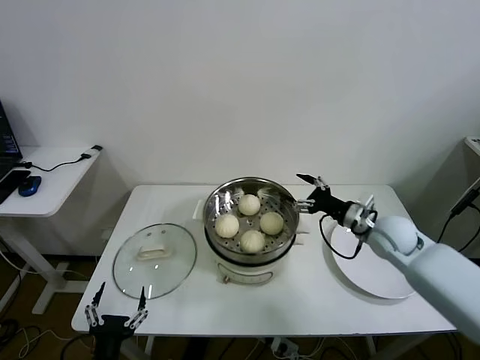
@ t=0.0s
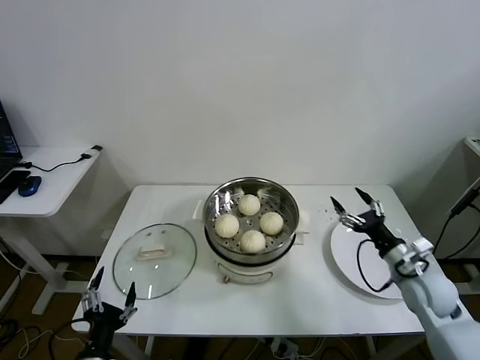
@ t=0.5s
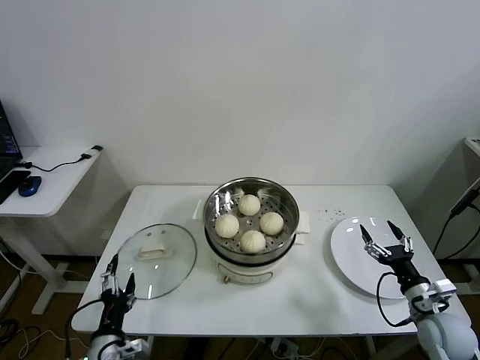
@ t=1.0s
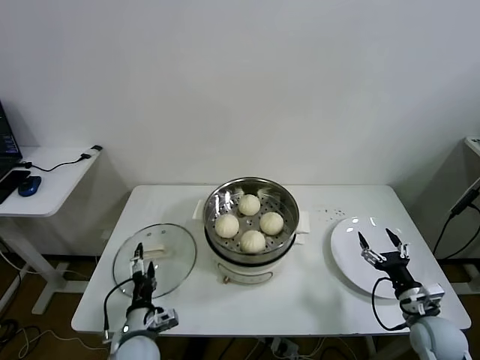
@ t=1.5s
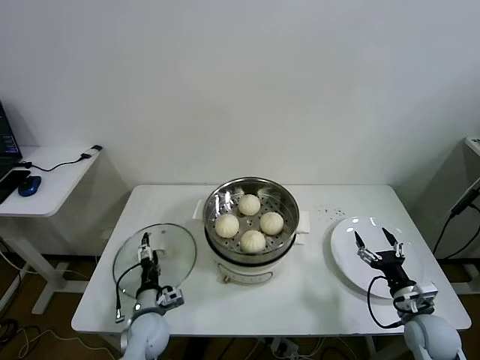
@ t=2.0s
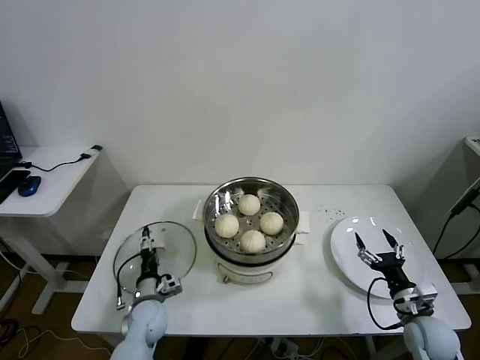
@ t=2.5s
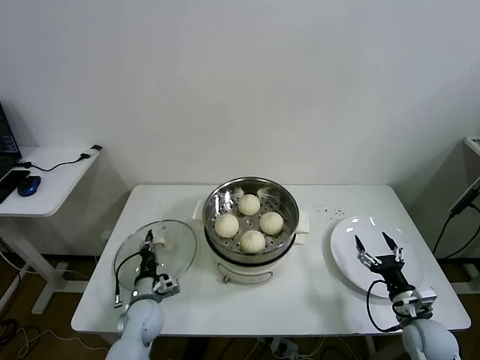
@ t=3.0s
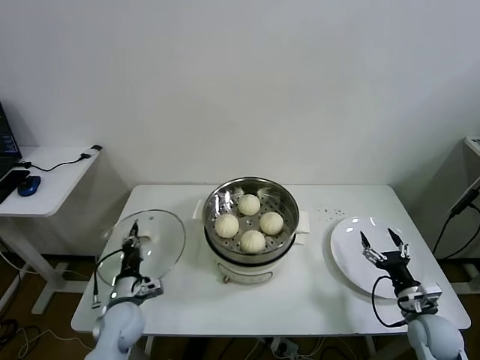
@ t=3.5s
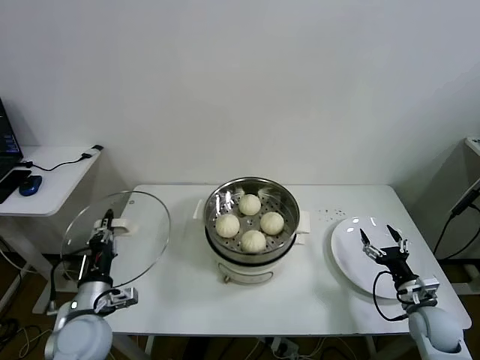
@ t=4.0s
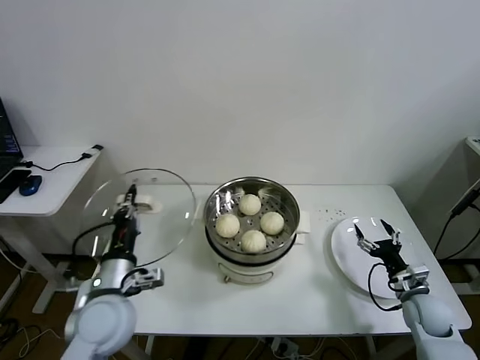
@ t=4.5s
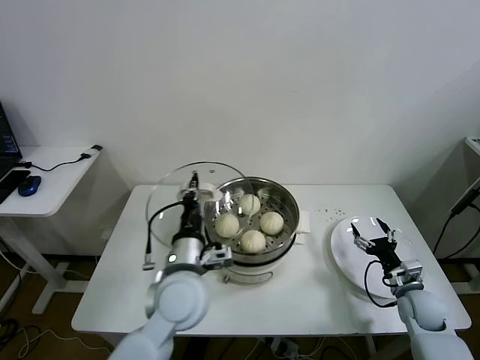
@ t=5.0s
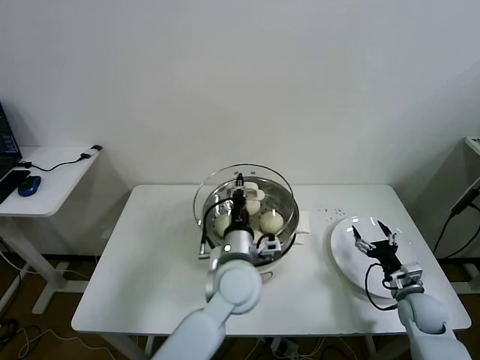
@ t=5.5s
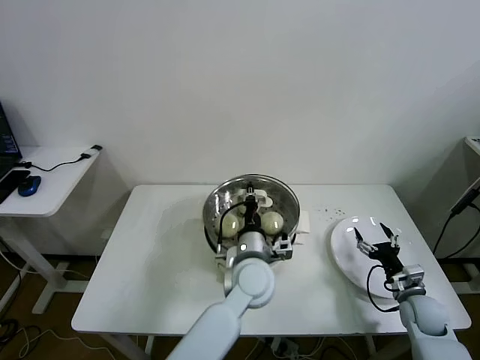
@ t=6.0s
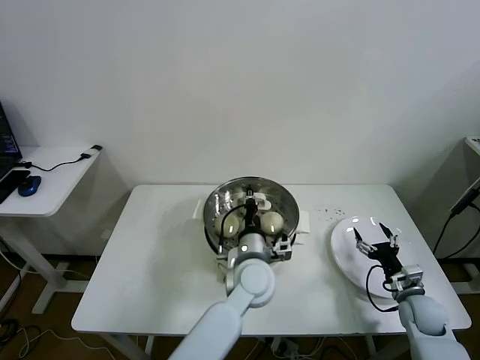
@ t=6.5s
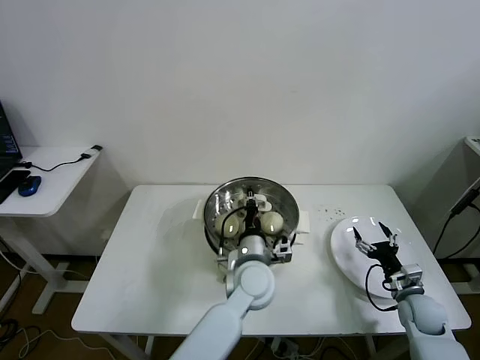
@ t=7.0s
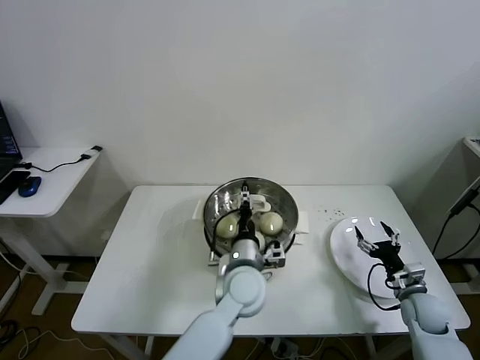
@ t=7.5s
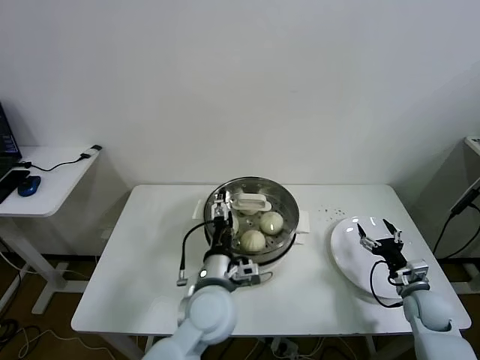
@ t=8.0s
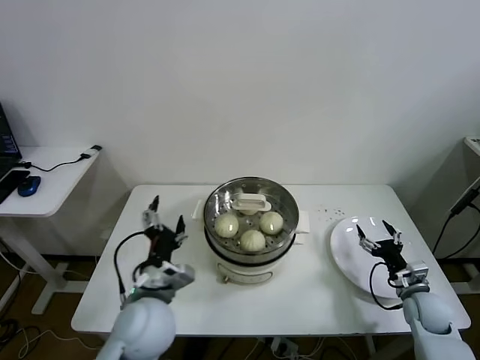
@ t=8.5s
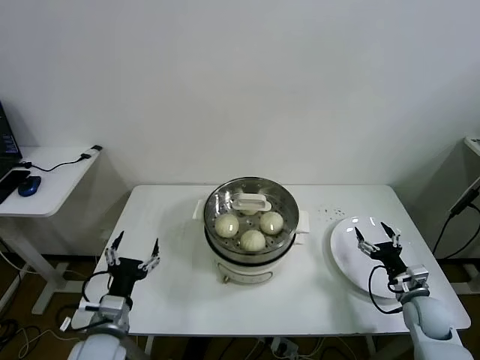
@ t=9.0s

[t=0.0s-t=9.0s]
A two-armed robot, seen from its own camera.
Task of the whole recording: take steamed baozi put them in steamer.
Step, t=0.0s to t=3.0s: Grasp the pot lid with left gripper.
Step, t=3.5s to t=7.5s: Place the pot lid on the steamer with left gripper.
t=0.0s to t=2.0s: The right gripper moves backward, downward and to the right, approximately 25 cm, while the left gripper goes approximately 20 cm forward and downward.
t=2.0s to t=4.5s: The right gripper moves about 5 cm. Meanwhile the left gripper heads upward, covering some 20 cm, and closes.
t=4.5s to t=7.0s: The left gripper heads to the right, covering some 25 cm.
t=7.0s to t=9.0s: The left gripper goes some 30 cm to the left and backward, and opens its fingers.

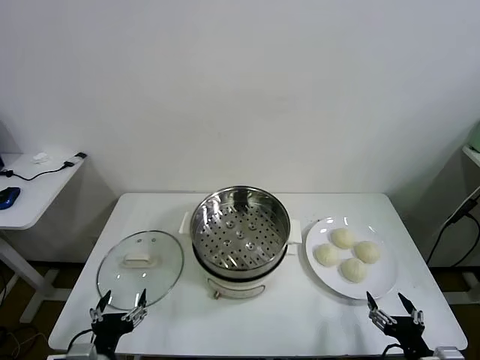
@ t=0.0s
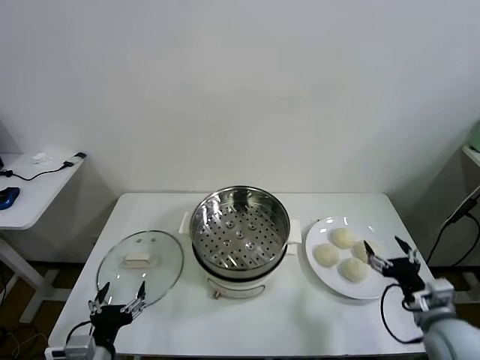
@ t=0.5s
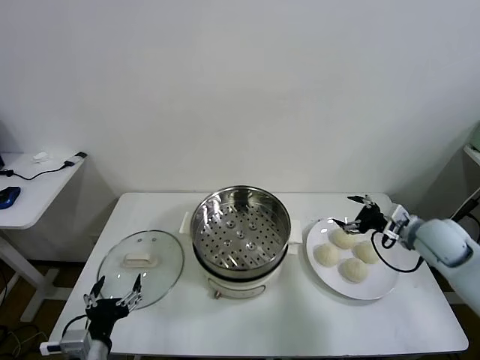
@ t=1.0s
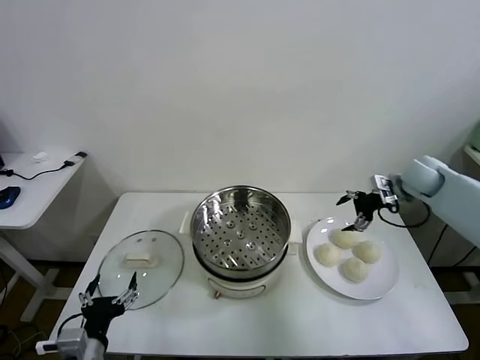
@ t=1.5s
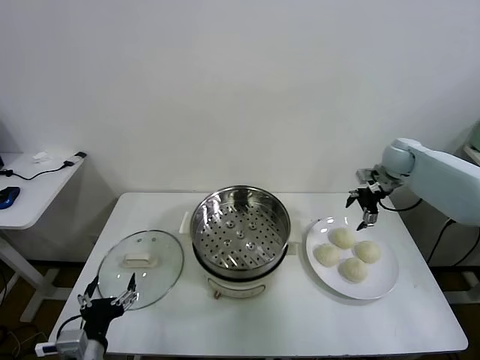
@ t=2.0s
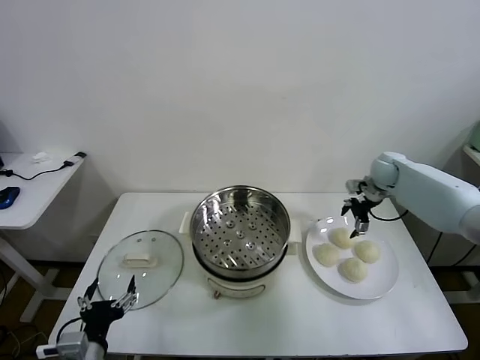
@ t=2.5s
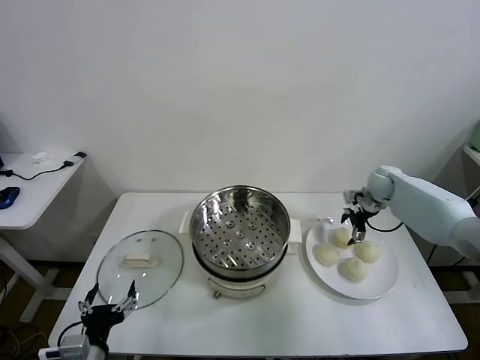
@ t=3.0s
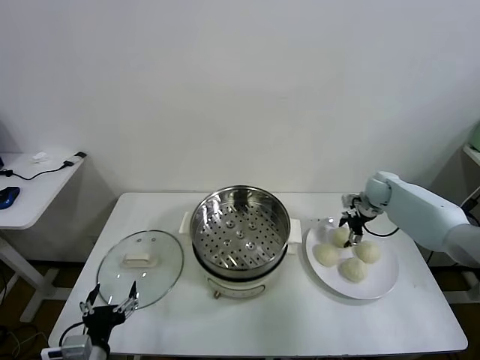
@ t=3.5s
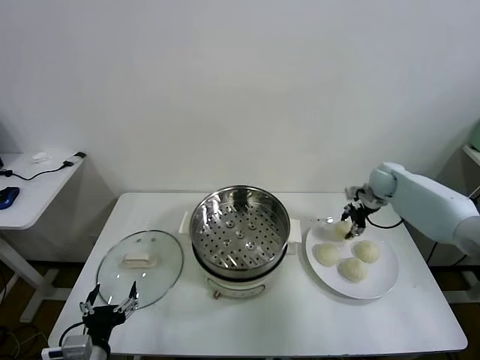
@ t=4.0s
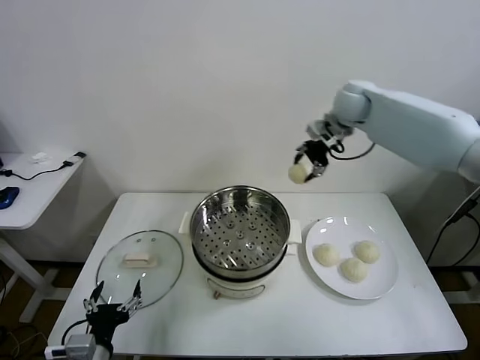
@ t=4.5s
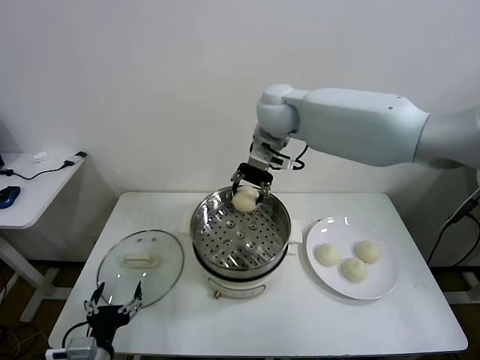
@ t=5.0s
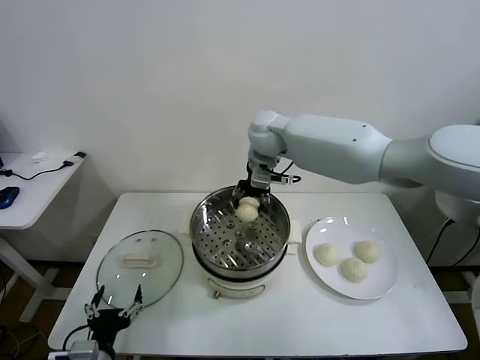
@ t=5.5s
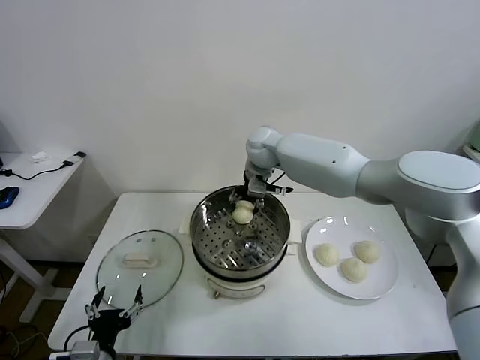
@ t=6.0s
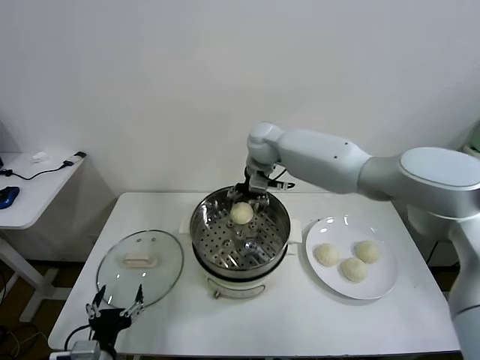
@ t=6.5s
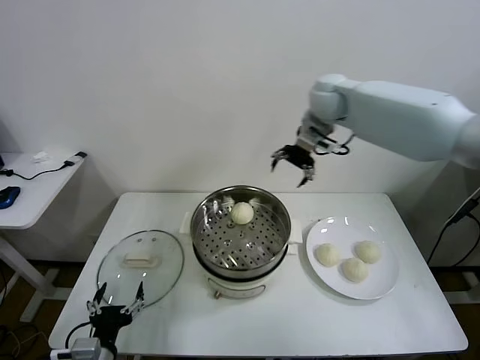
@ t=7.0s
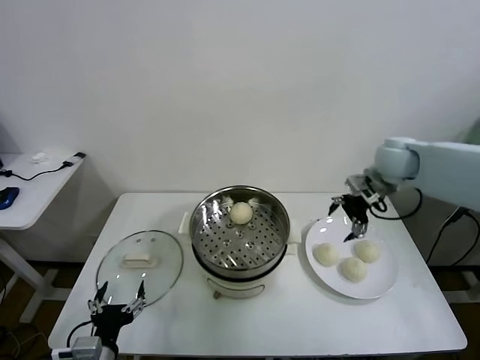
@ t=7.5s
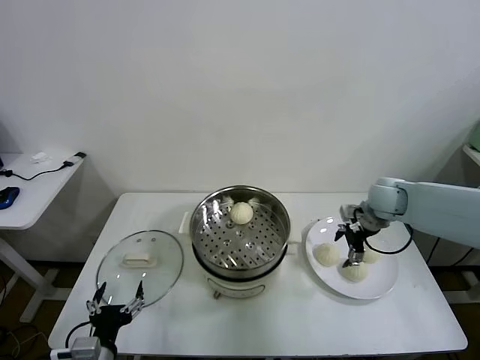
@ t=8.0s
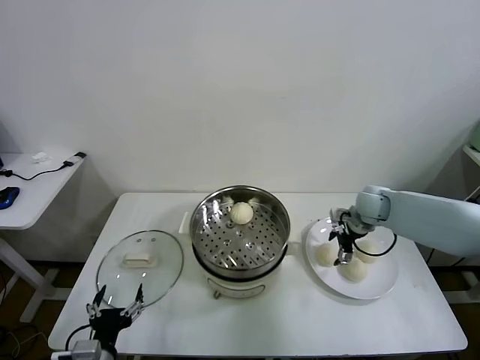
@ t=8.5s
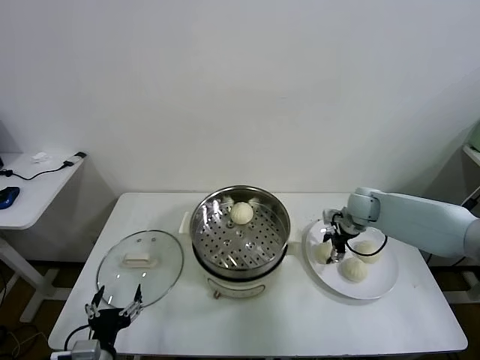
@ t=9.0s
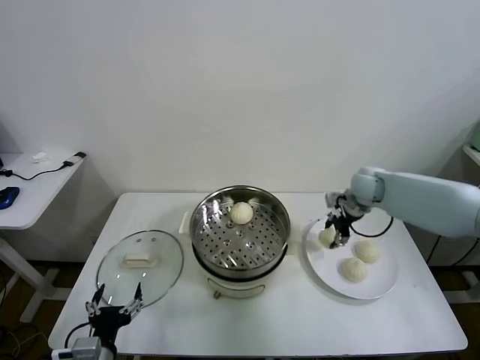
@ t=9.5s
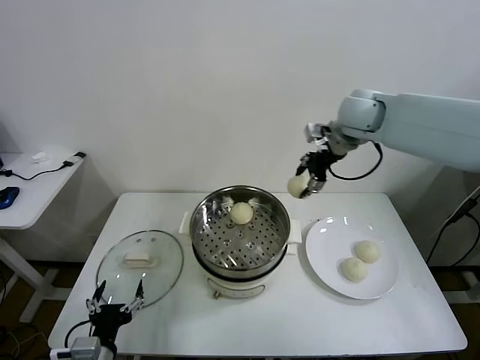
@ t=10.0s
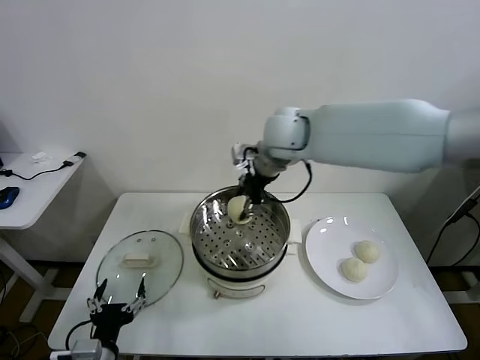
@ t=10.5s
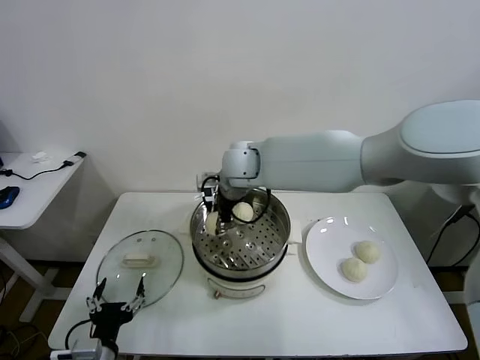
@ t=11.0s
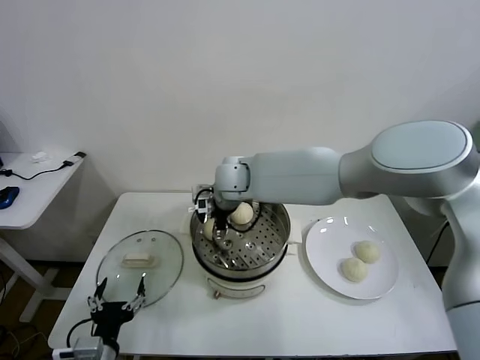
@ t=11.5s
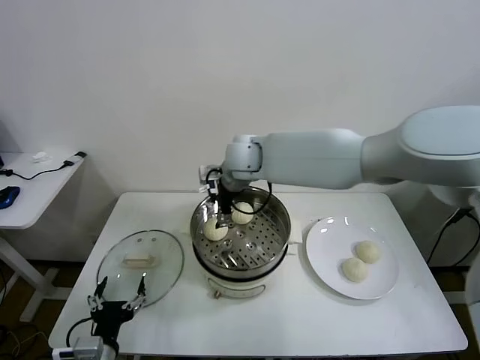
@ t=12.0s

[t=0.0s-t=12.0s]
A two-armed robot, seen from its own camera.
Task of the whole recording: take steamed baozi put them in steamer.
Step, t=0.0s to t=3.5s: Grasp the baozi in the plate with right gripper.
Step, t=4.0s to t=6.0s: Place the baozi on the steamer with right gripper.
Step, t=6.5s to t=9.0s: Grasp the baozi in the plate with right gripper.
Step, t=9.5s to t=11.5s: Place the baozi on the steamer with right gripper.
t=2.0s to t=4.0s: The right gripper closes.
t=4.0s to t=6.0s: The right gripper is displaced to the left by roughly 35 cm.
t=6.0s to t=8.0s: The right gripper is displaced to the right by some 30 cm, and opens.
t=8.0s to t=10.0s: The right gripper is displaced upward and to the left by roughly 25 cm, and closes its fingers.
t=10.0s to t=12.0s: The right gripper goes roughly 20 cm to the left and downward, and opens.

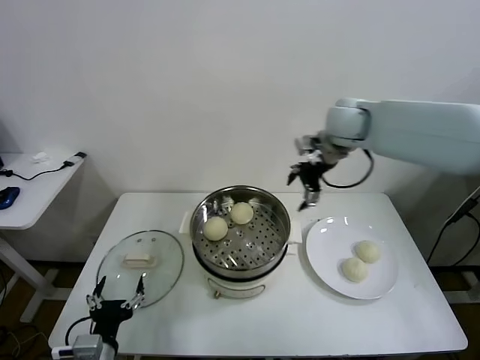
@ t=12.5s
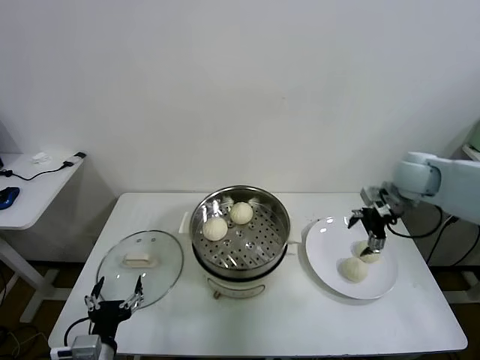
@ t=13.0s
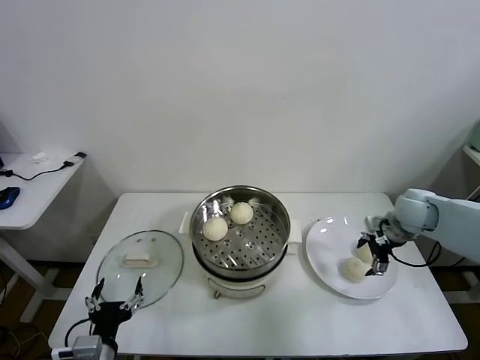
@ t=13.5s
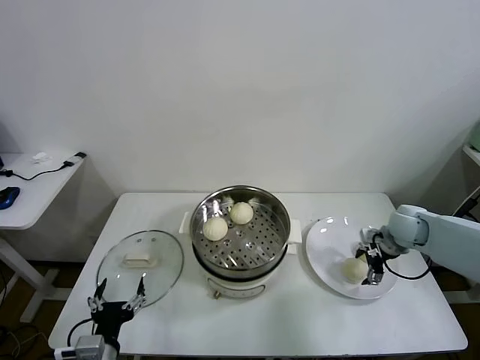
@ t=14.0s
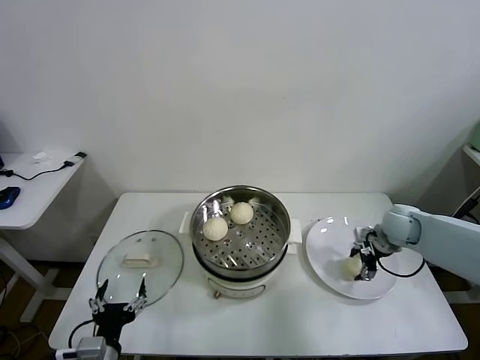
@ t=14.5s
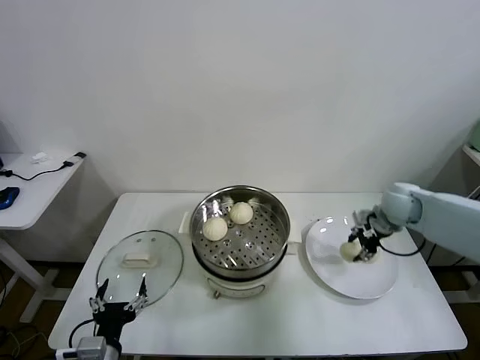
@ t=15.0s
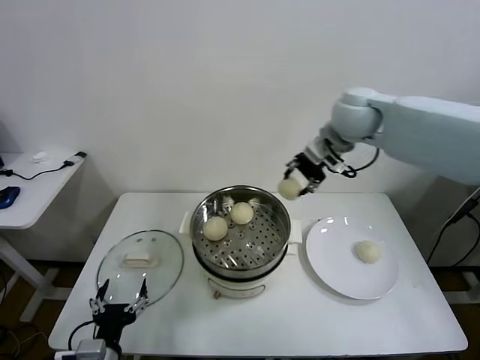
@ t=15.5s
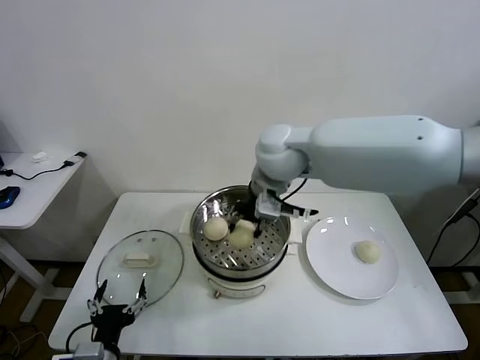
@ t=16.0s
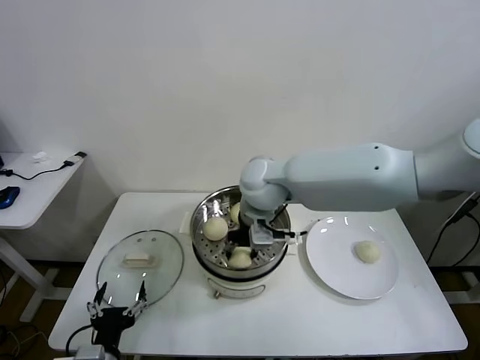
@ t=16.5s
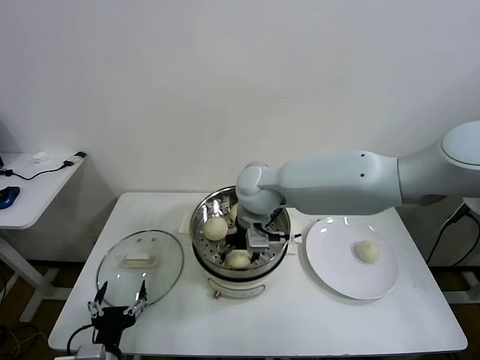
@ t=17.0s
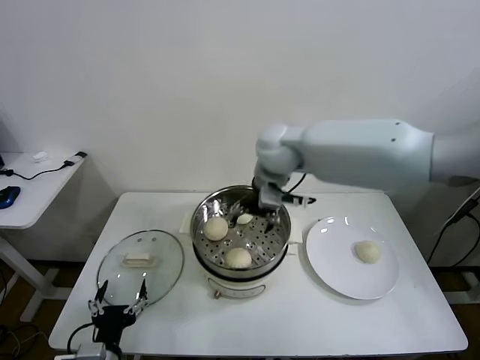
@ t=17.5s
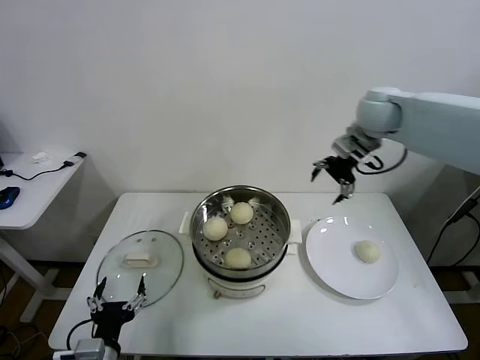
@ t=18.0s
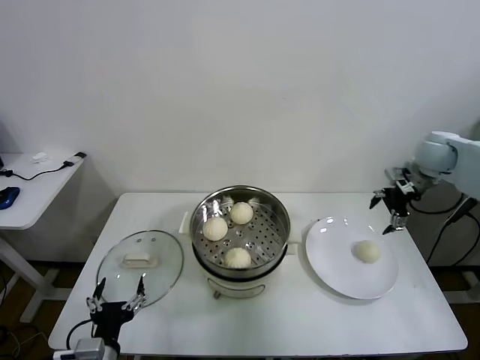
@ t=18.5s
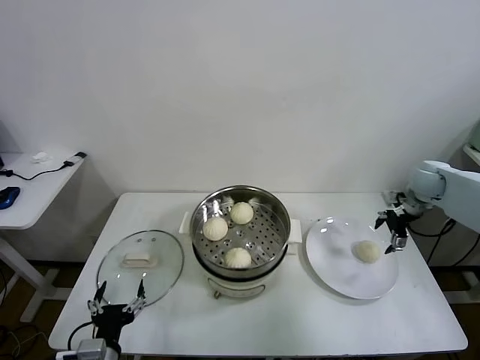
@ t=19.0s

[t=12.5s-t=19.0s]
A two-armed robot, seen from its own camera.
Task of the whole recording: take steamed baozi put them in steamer.
Step, t=12.5s to t=14.5s: Grasp the baozi in the plate with right gripper.
Step, t=15.0s to t=17.0s: Place the baozi on the steamer with right gripper.
t=12.5s to t=14.5s: The right gripper heads downward and to the right, covering about 30 cm, and closes up.
t=14.5s to t=17.0s: The right gripper goes roughly 35 cm to the left, and opens.
t=17.0s to t=19.0s: The right gripper shifts approximately 40 cm to the right.
